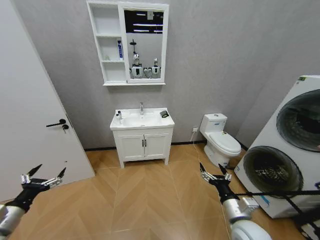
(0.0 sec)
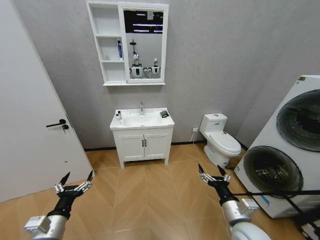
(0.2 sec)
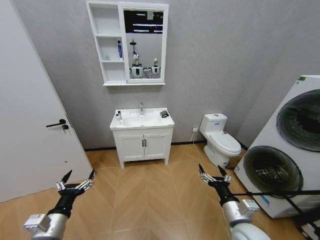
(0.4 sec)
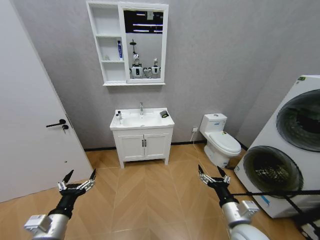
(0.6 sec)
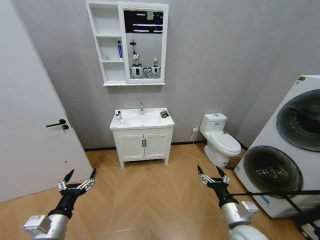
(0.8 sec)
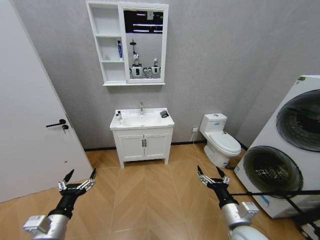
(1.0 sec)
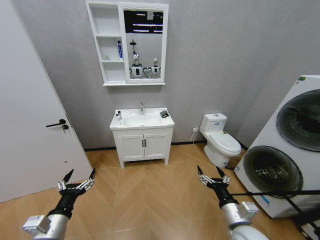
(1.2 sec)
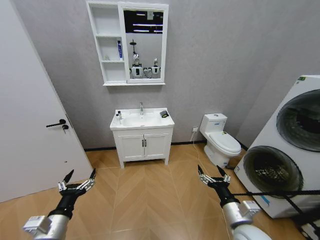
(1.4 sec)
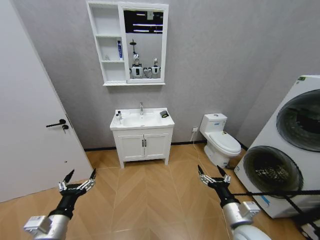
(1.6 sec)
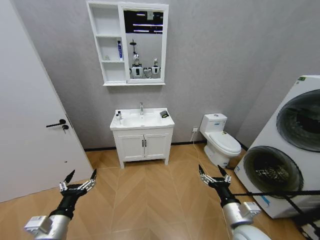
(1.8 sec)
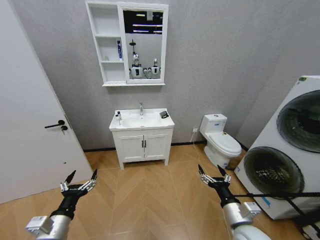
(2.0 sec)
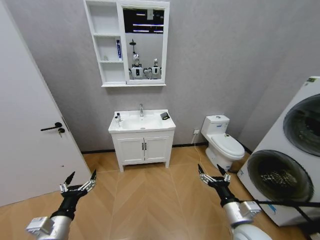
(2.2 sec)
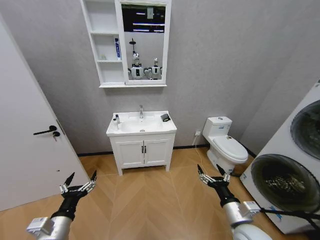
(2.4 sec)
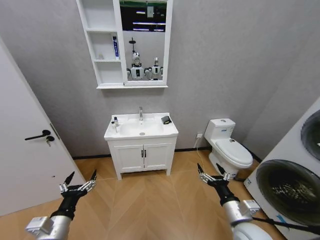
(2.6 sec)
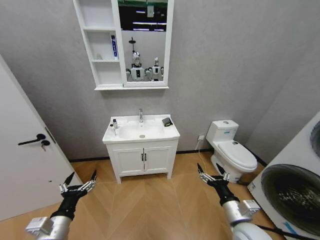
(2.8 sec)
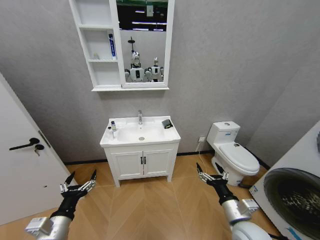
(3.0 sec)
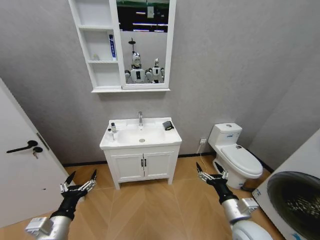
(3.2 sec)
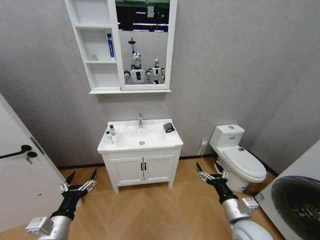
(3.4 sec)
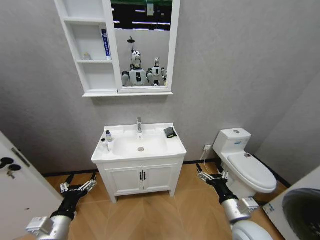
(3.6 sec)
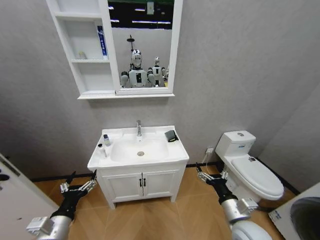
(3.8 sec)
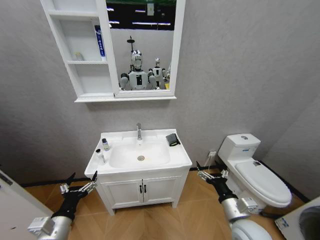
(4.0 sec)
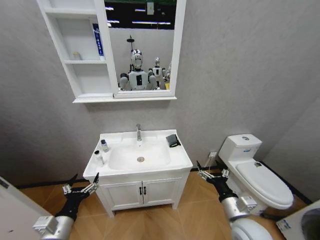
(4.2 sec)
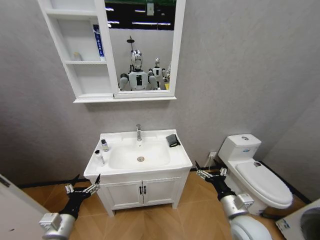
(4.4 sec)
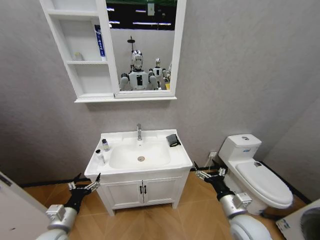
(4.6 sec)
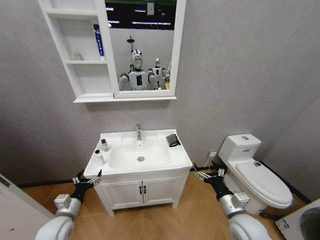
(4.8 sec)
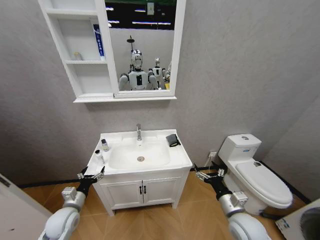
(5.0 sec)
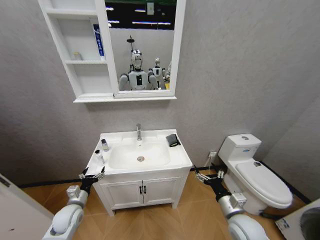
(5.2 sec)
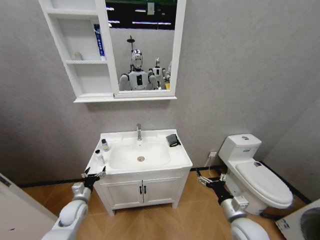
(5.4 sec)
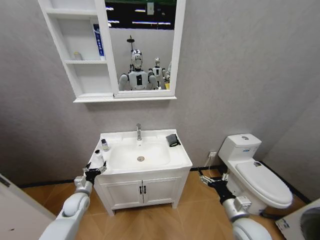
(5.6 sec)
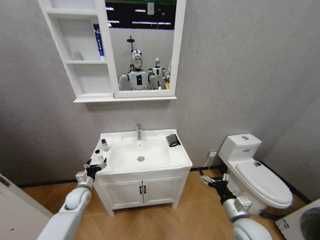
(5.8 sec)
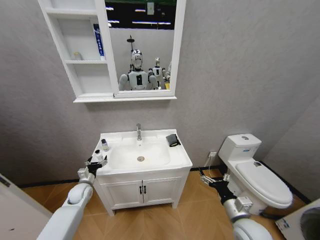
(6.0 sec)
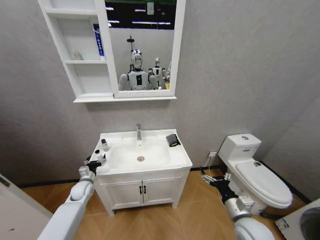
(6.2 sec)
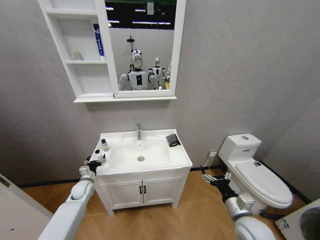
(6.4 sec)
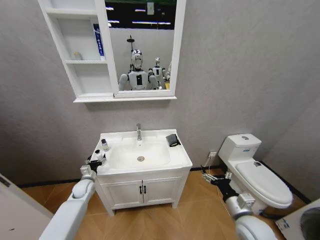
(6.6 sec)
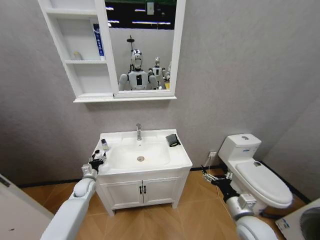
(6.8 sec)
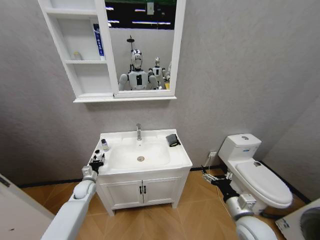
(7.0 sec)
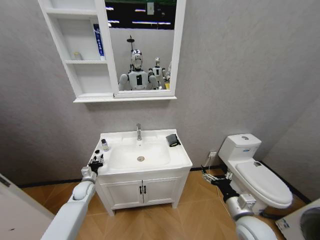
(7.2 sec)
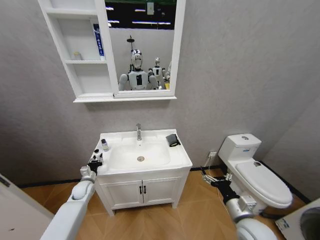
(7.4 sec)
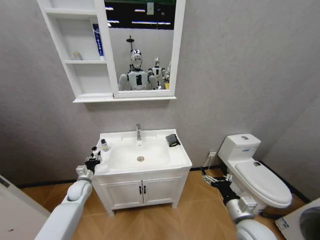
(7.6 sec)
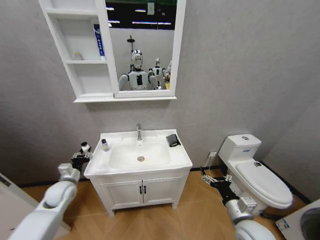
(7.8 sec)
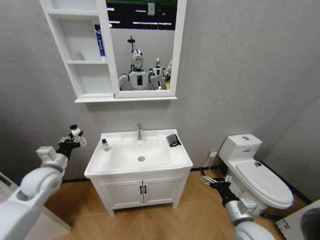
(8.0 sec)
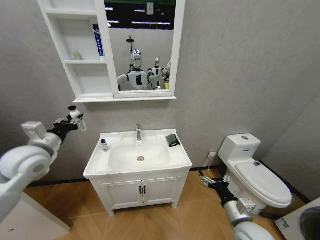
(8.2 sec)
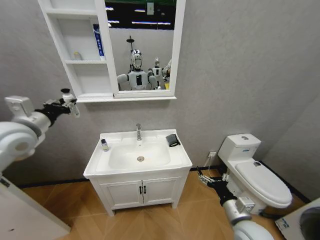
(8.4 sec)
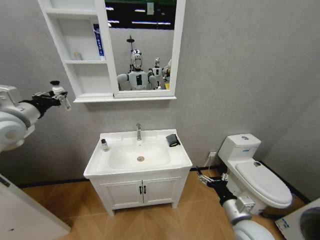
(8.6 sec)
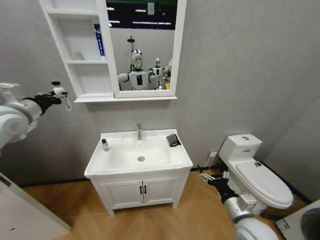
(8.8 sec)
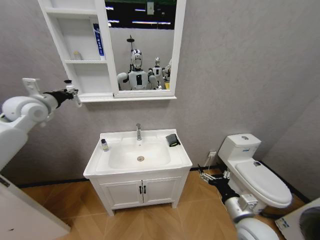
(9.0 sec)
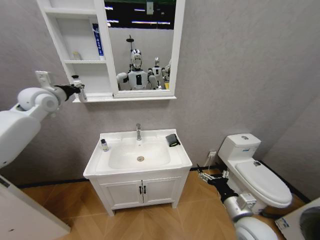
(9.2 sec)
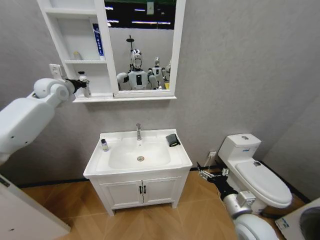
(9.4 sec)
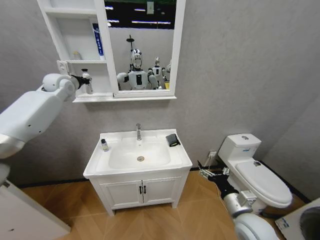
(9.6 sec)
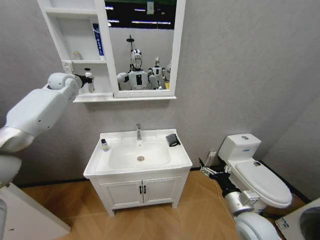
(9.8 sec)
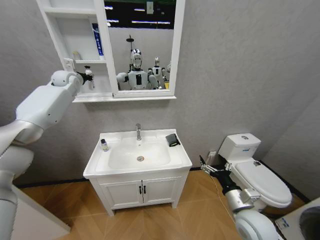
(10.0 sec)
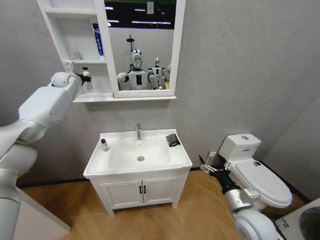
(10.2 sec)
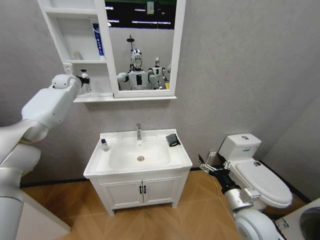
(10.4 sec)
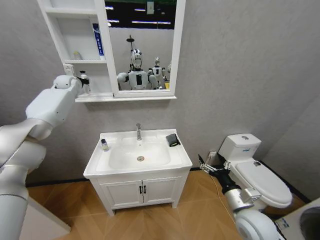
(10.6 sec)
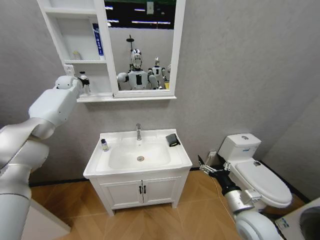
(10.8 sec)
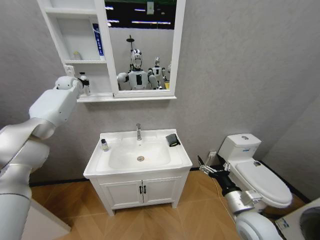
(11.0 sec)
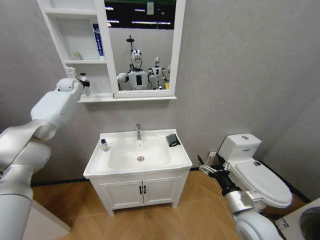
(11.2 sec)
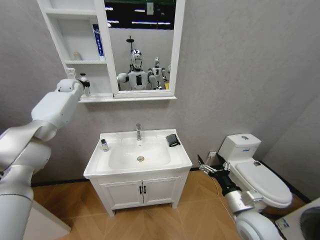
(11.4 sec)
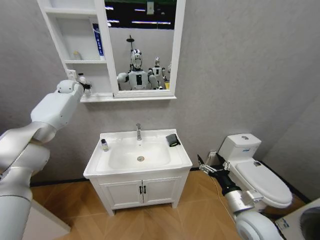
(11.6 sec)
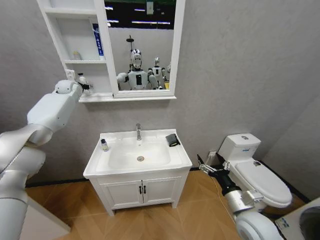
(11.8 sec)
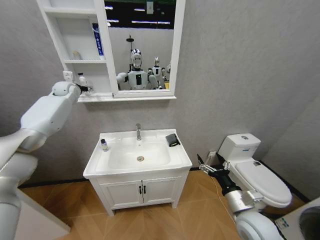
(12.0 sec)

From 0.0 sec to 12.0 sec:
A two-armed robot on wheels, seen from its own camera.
Task of the whole recording: Move facial cleanser and shampoo from washbasin to cabinet, then wipe washbasin with towel.
From 4.4 sec to 6.0 sec: The left gripper shifts approximately 25 cm forward and downward.
From 6.0 sec to 7.6 sec: The left gripper closes its fingers.
From 7.6 sec to 9.0 sec: The left gripper heads upward, covering roughly 40 cm.
From 9.0 sec to 10.4 sec: The left gripper goes about 20 cm forward.
From 10.4 sec to 12.0 sec: The left gripper opens.

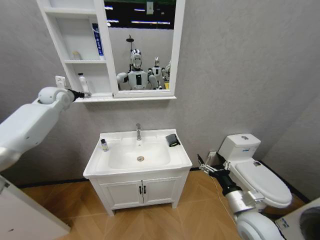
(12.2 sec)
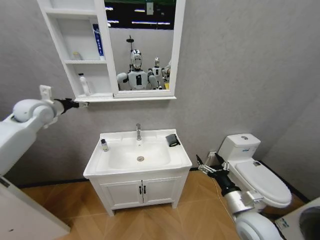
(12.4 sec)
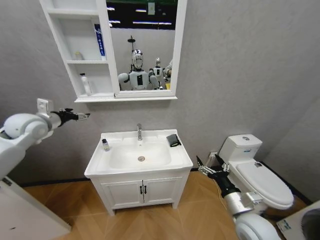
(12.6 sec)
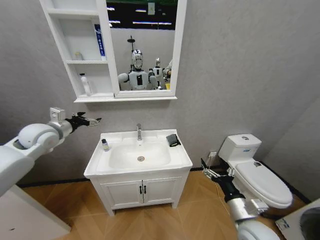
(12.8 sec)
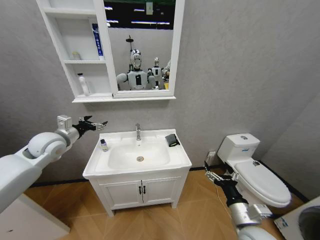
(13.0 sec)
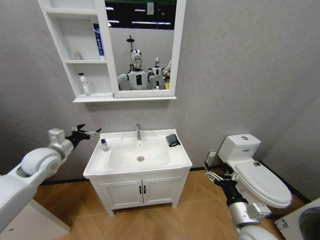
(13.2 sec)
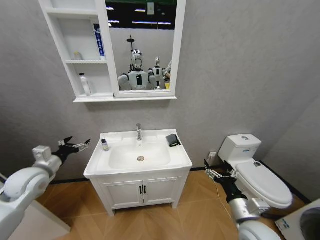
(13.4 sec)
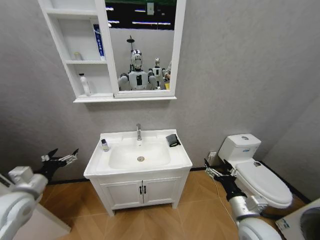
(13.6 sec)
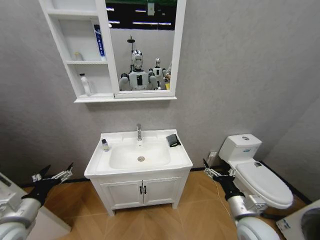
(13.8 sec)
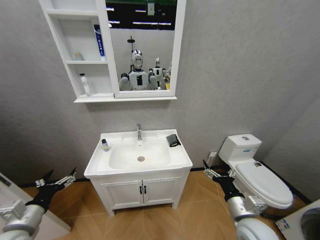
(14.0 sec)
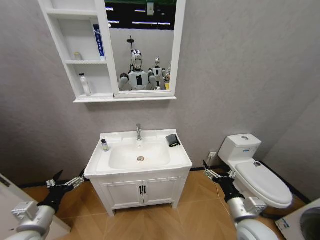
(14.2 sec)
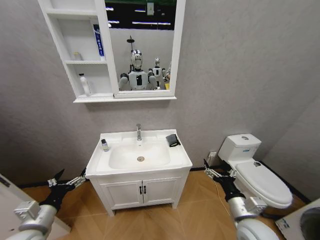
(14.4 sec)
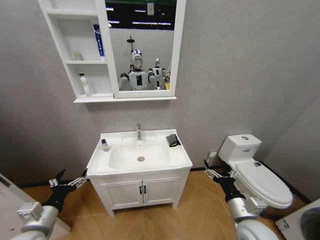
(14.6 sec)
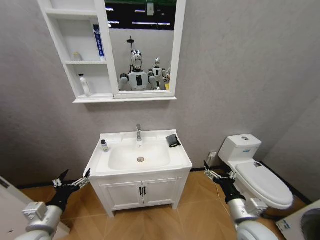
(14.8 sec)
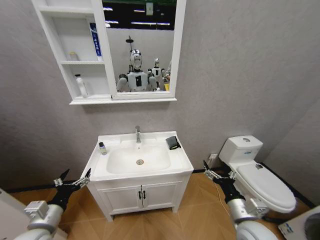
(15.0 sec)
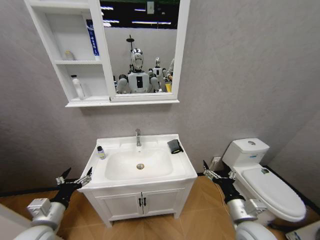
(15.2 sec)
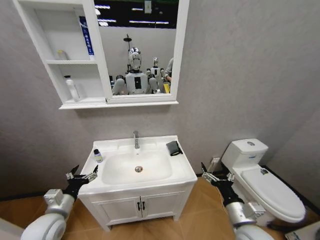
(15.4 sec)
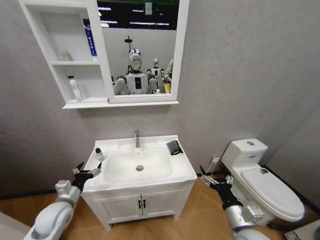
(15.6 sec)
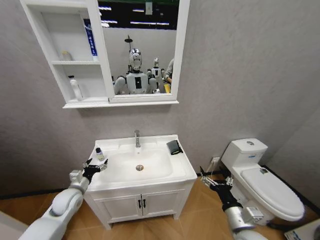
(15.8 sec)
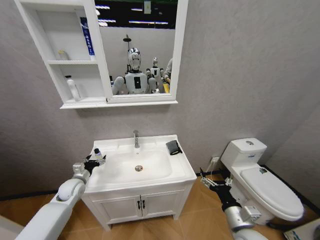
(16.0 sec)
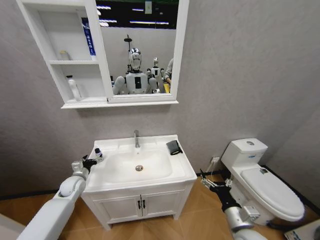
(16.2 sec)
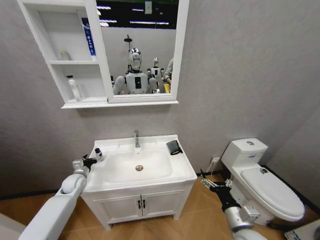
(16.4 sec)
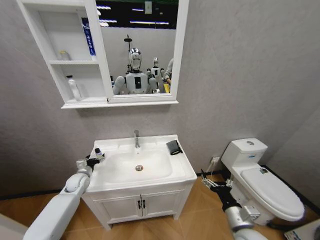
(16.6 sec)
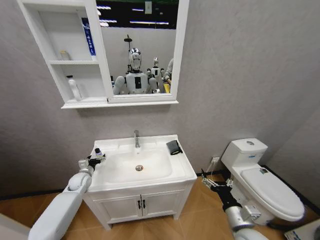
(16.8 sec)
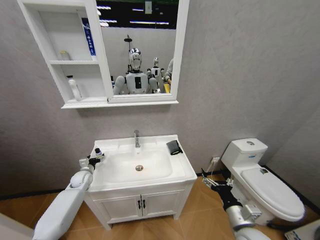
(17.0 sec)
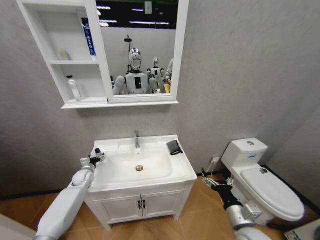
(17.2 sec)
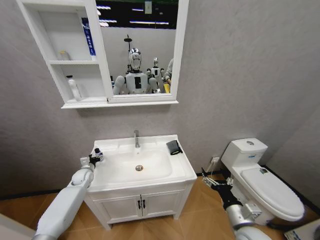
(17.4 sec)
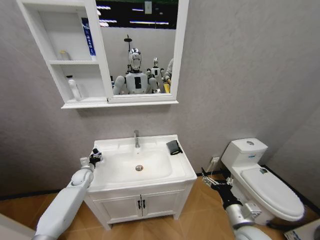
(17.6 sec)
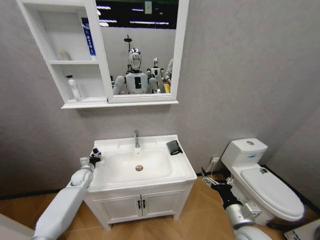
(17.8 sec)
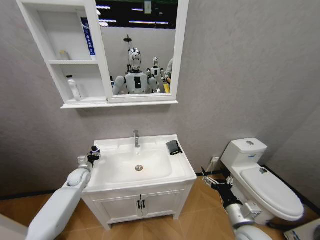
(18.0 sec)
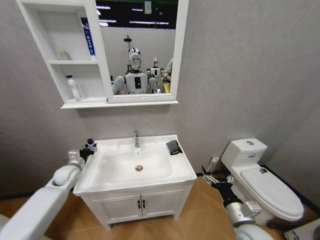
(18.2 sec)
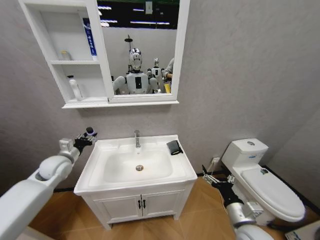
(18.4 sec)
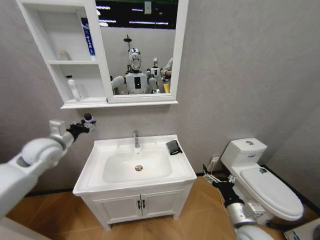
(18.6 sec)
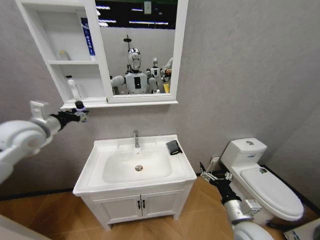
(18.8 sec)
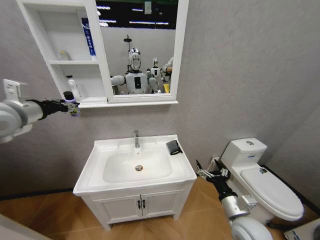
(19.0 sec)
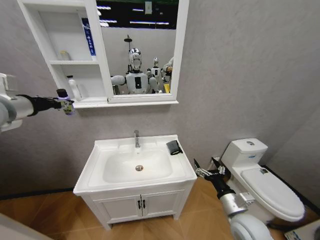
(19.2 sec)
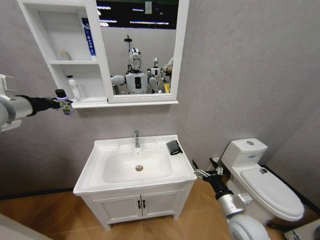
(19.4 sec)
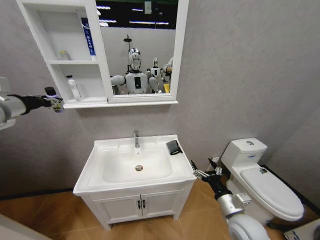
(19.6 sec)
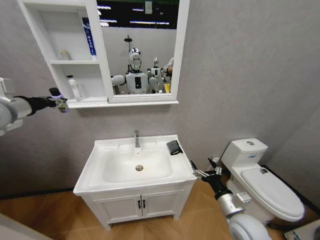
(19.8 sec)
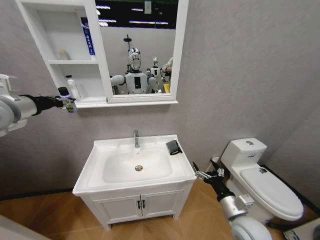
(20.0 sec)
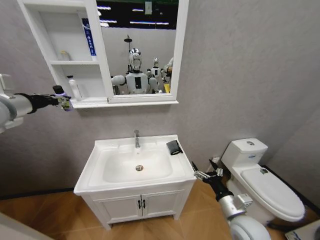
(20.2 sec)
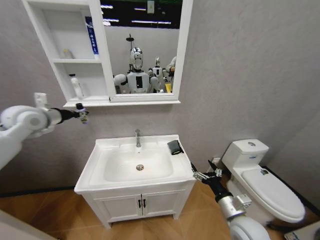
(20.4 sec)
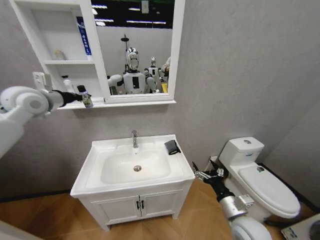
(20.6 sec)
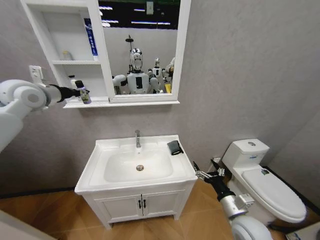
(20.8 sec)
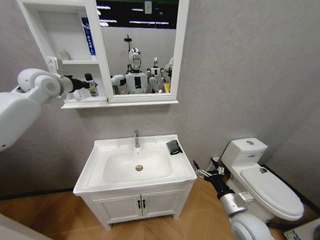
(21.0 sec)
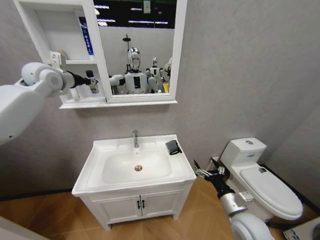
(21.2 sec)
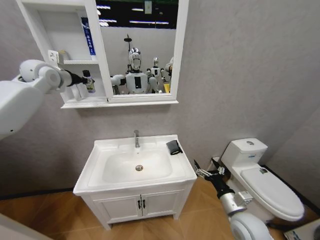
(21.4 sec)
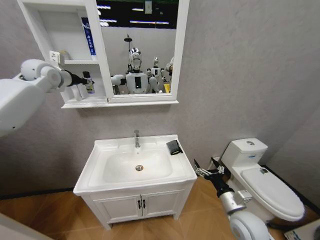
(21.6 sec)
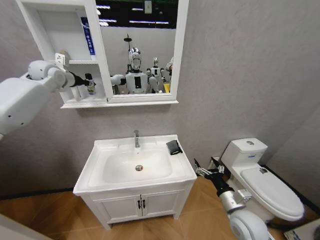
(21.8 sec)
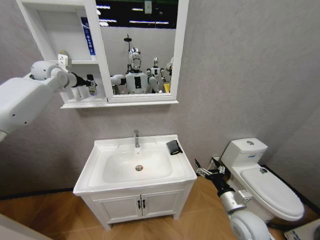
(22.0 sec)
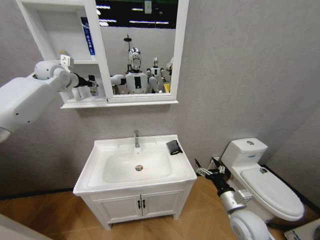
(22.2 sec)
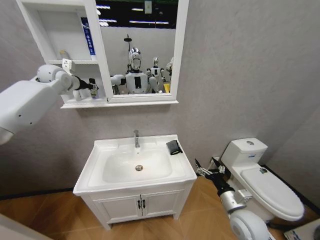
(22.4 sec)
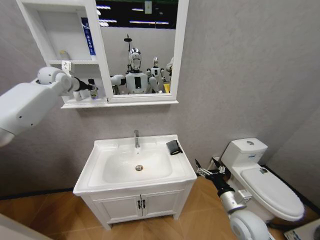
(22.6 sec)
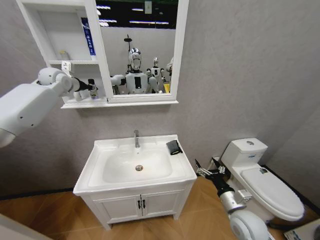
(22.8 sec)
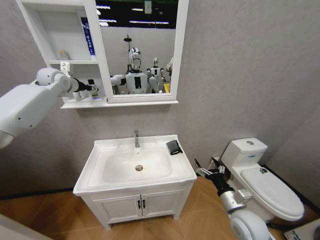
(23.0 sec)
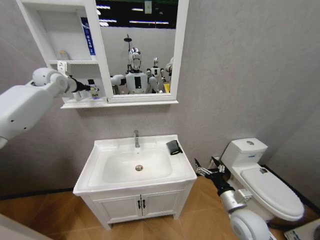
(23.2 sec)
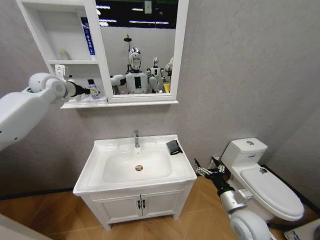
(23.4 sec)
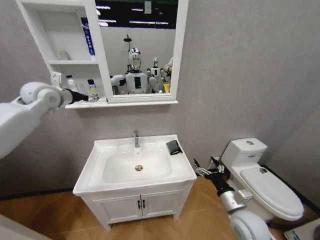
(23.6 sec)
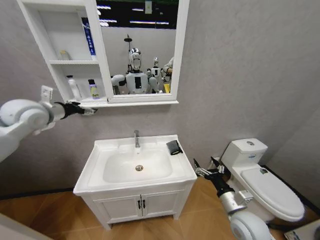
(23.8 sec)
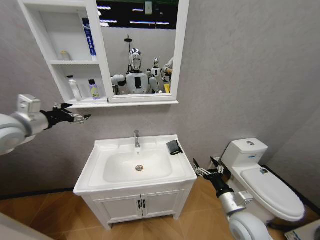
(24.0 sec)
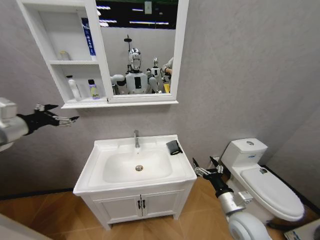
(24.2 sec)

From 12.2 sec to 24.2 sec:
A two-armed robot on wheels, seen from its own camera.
Task of the whole recording: Move facial cleanser and shampoo from washbasin to cabinet, then wipe washbasin with towel.
From 12.2 sec to 13.8 sec: The left gripper is displaced backward and downward by approximately 50 cm.
From 13.8 sec to 15.2 sec: The left gripper is displaced to the right by about 5 cm.
From 15.2 sec to 16.6 sec: The left gripper shifts approximately 25 cm forward and downward.
From 16.6 sec to 18.2 sec: The left gripper heads upward, covering approximately 10 cm, and closes.
From 18.2 sec to 19.8 sec: The left gripper is displaced upward by roughly 35 cm.
From 19.8 sec to 21.2 sec: The left gripper is displaced forward and to the right by about 15 cm.
From 21.2 sec to 22.6 sec: The left gripper travels forward by about 5 cm.
From 22.6 sec to 24.2 sec: The left gripper is displaced backward by about 30 cm, and opens.
